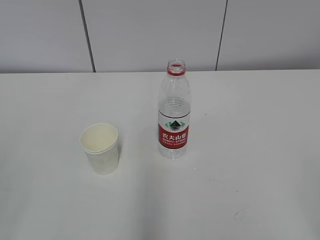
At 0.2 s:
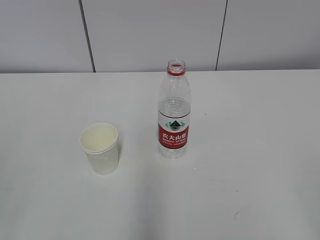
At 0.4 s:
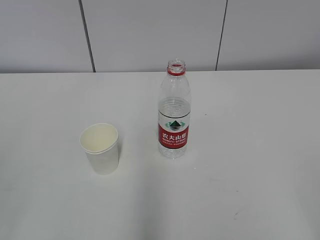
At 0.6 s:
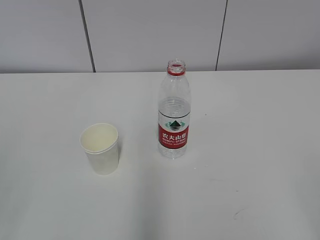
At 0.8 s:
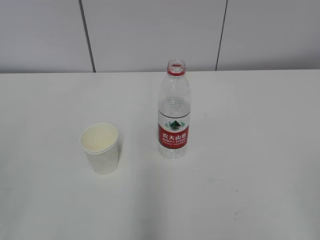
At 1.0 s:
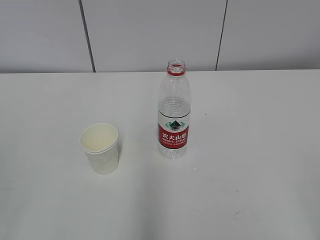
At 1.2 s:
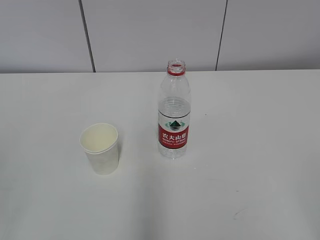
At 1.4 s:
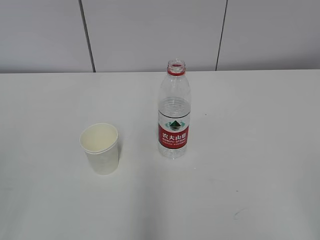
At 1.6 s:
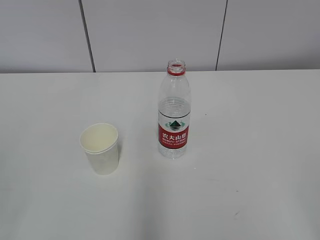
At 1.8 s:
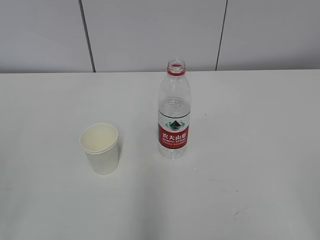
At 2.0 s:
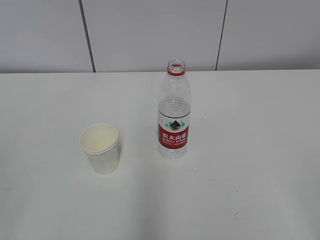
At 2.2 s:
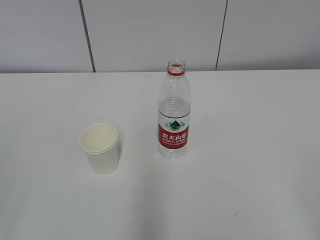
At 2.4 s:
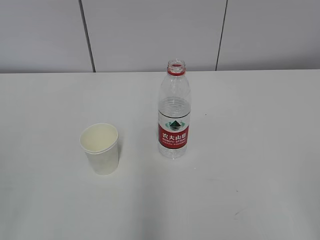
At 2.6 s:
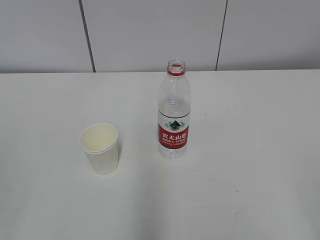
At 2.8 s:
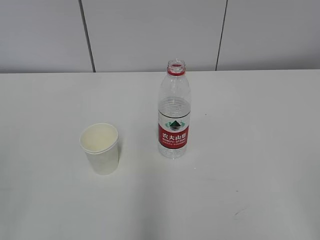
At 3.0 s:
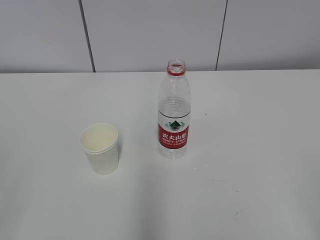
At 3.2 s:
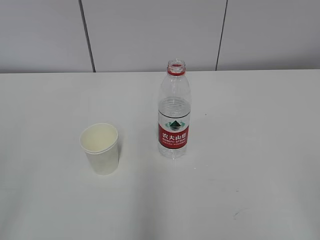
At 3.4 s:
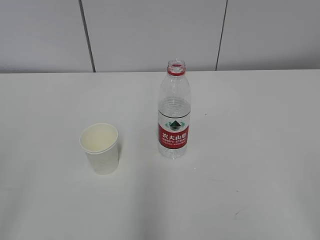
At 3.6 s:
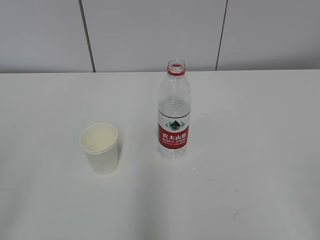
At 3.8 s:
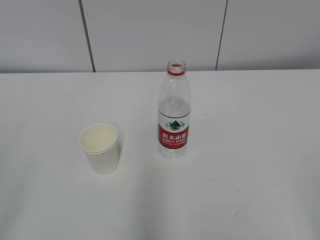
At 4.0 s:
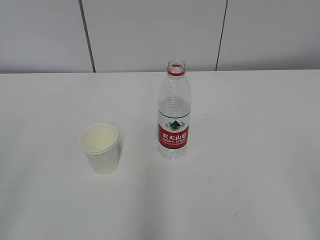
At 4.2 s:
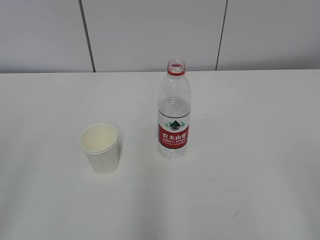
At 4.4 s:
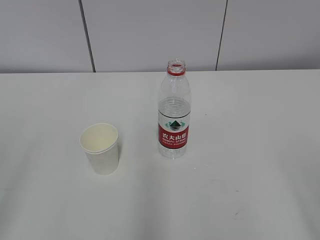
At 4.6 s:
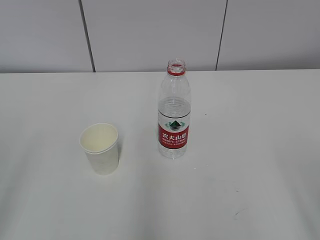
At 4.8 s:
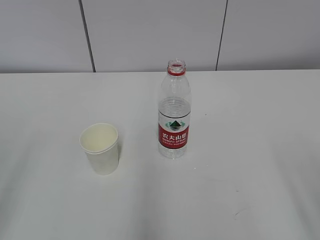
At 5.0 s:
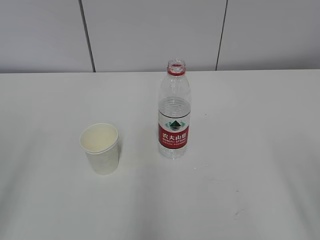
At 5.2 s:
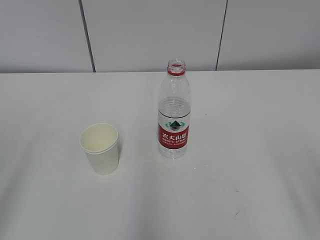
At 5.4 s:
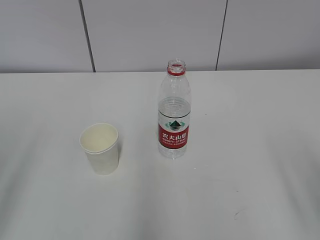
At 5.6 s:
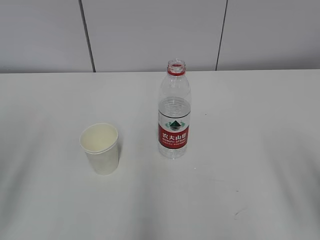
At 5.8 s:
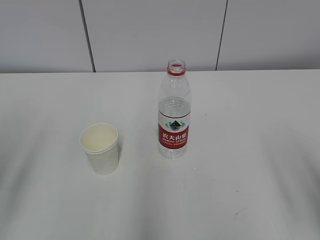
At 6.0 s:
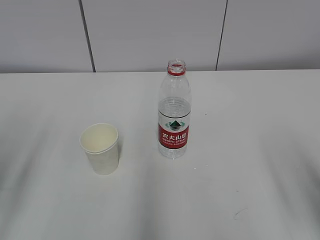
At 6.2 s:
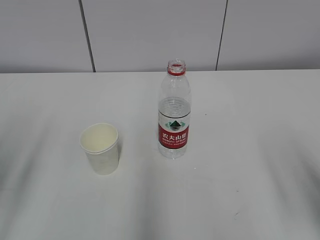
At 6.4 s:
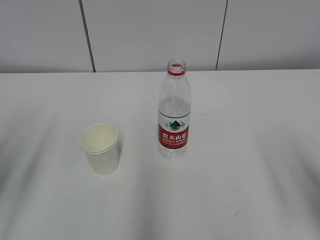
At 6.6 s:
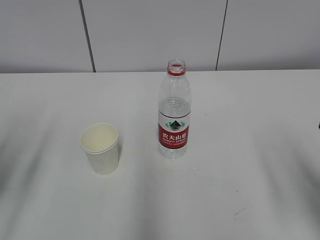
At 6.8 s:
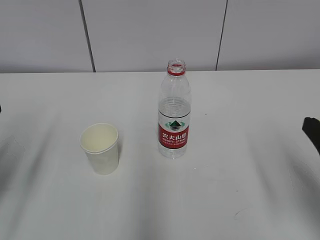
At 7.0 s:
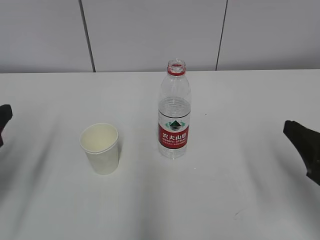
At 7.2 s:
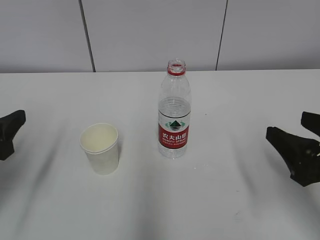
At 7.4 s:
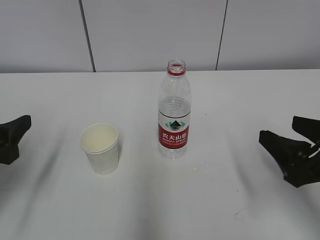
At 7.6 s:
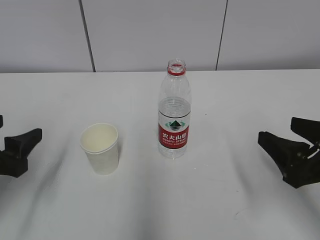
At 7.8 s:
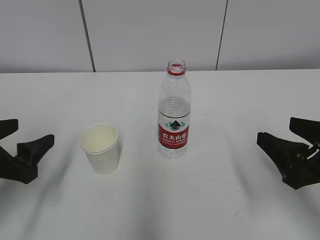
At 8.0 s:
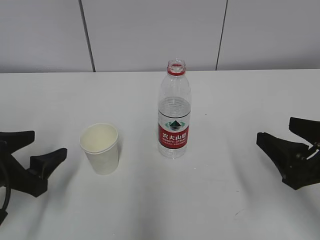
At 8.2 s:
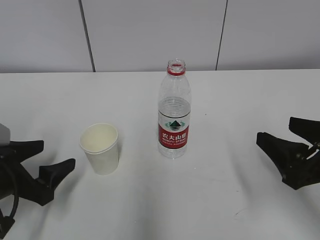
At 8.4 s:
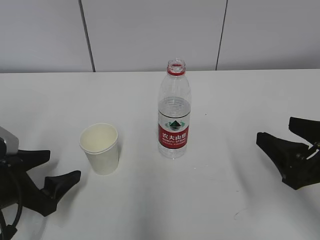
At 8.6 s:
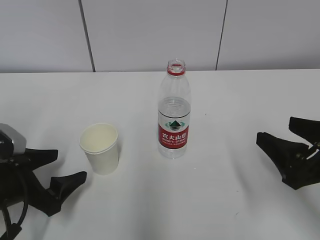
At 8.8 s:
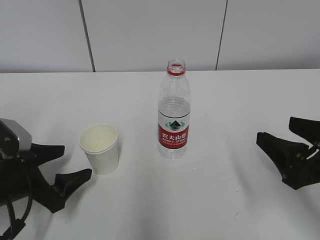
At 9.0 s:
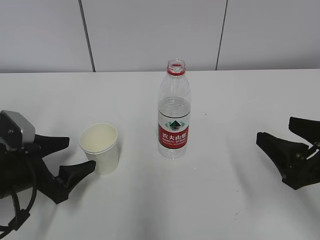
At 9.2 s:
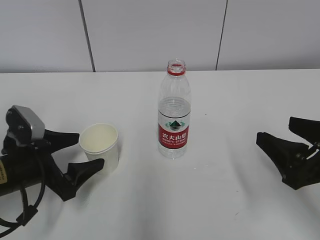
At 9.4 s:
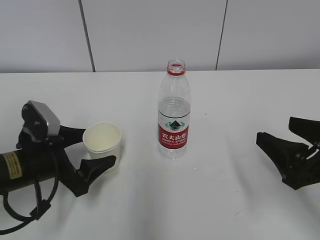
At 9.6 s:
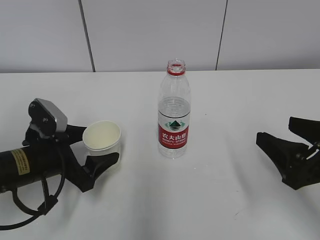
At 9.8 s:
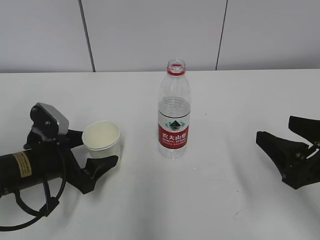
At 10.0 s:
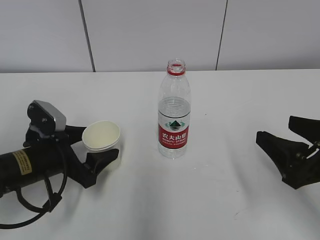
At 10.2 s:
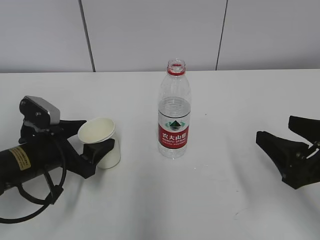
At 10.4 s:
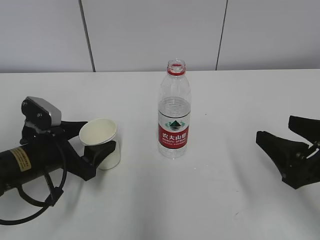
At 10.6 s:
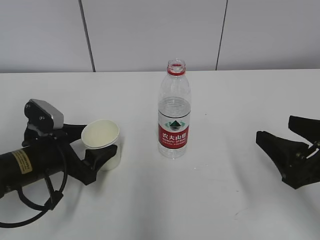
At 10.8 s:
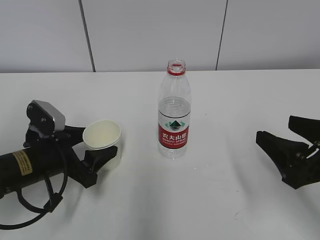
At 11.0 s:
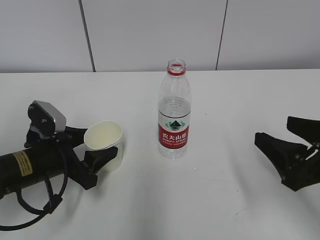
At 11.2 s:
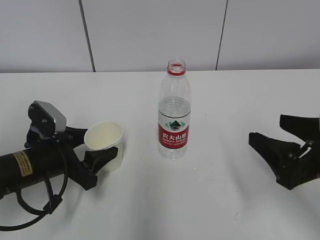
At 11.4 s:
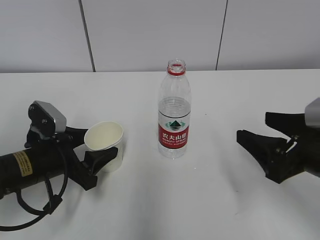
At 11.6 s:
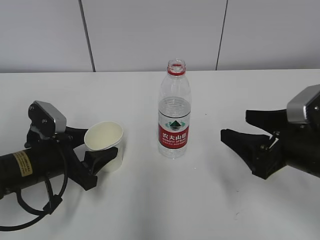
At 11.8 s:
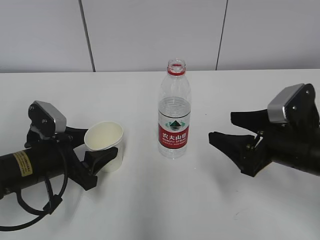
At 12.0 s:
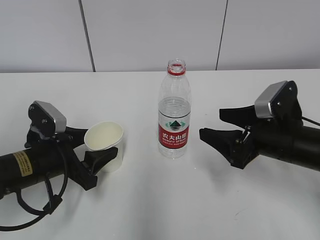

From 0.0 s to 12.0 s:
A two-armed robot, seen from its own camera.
Step, from 0.0 s to 11.2 s: Grab the paper cup with the left hand.
Step, from 0.0 s to 11.2 s: Grab the water bottle with the right hand.
From 6.0 s to 7.6 s: The left gripper is displaced downward and forward by about 10 cm. Meanwhile the right gripper heads forward and downward, covering about 10 cm.
From 7.6 s to 9.0 s: The left gripper heads downward, covering roughly 5 cm.
From 9.0 s to 10.4 s: The grippers make only small movements.
From 10.4 s to 12.0 s: The right gripper heads forward, covering approximately 10 cm.

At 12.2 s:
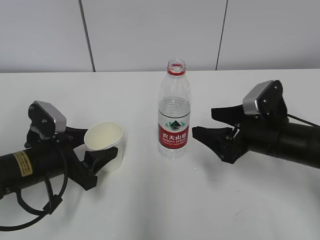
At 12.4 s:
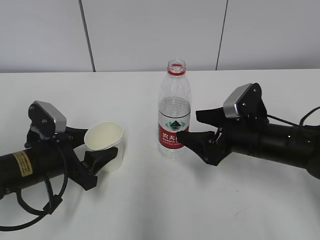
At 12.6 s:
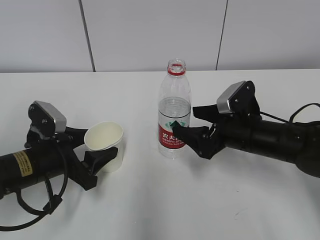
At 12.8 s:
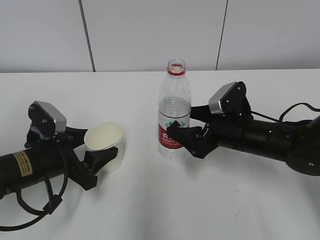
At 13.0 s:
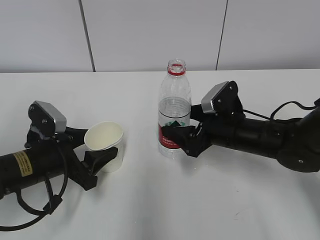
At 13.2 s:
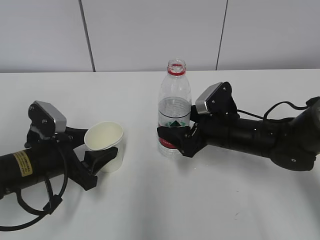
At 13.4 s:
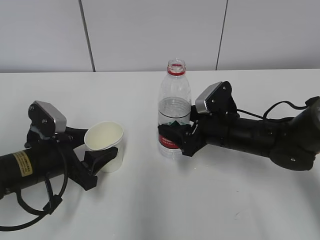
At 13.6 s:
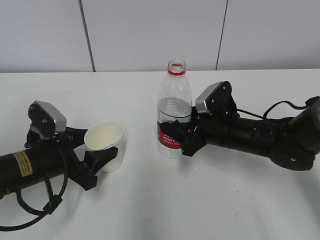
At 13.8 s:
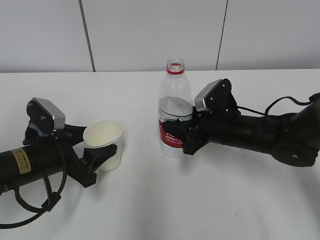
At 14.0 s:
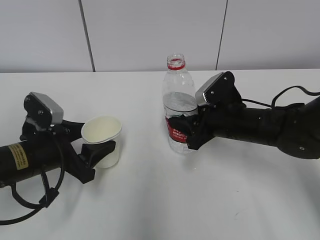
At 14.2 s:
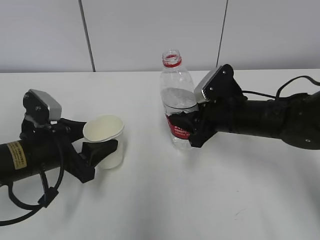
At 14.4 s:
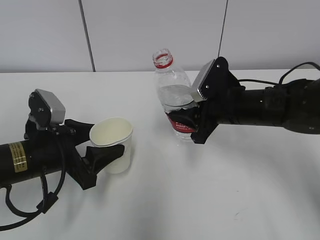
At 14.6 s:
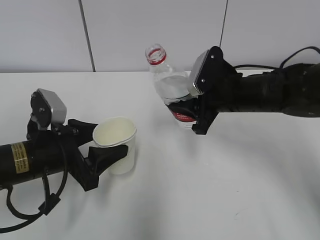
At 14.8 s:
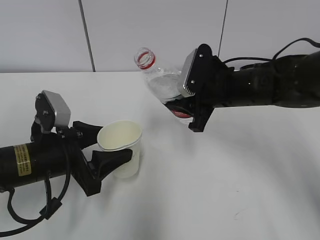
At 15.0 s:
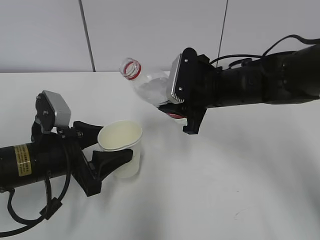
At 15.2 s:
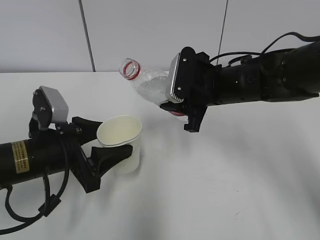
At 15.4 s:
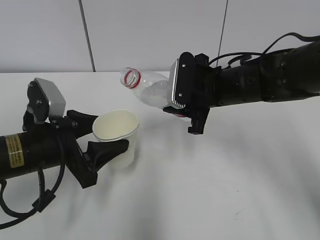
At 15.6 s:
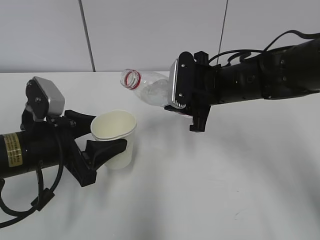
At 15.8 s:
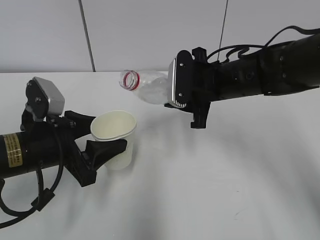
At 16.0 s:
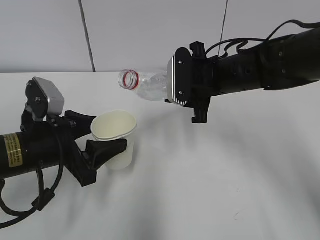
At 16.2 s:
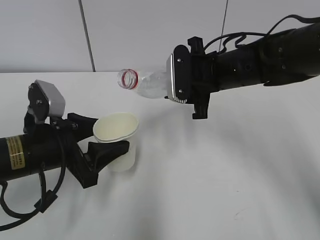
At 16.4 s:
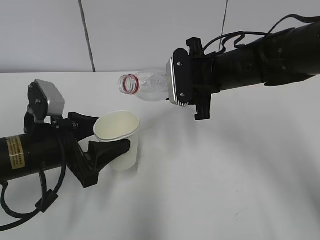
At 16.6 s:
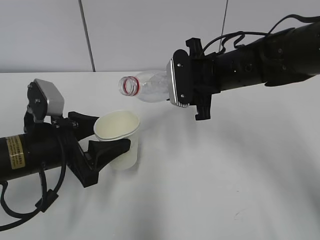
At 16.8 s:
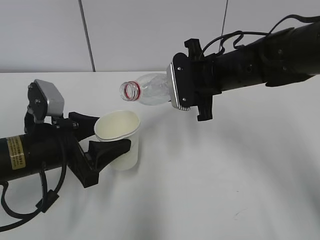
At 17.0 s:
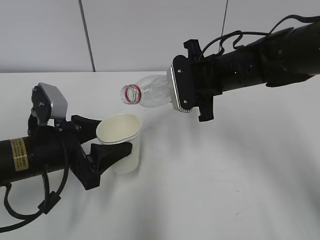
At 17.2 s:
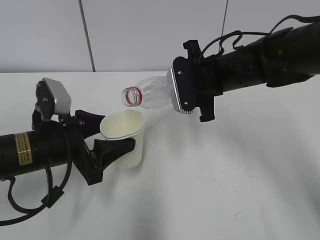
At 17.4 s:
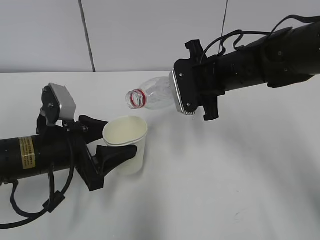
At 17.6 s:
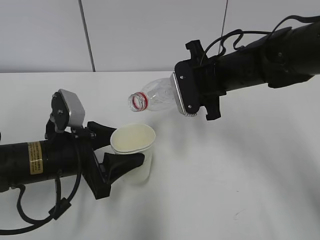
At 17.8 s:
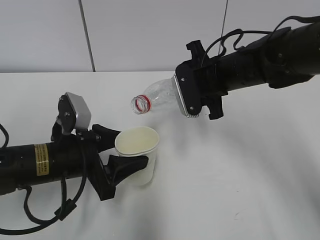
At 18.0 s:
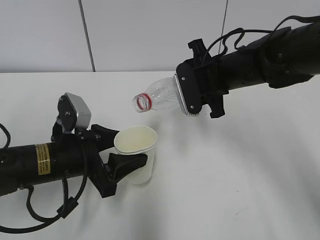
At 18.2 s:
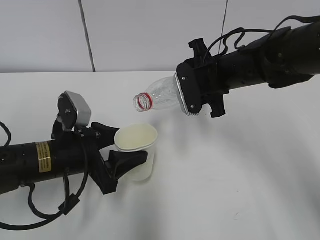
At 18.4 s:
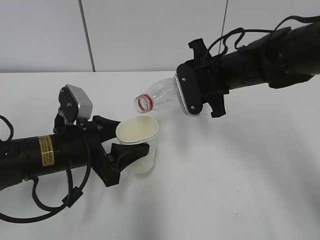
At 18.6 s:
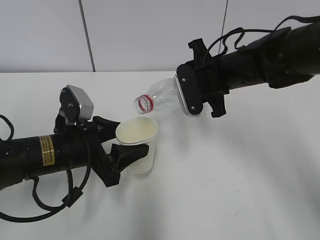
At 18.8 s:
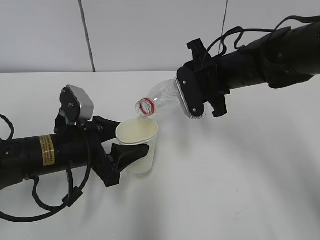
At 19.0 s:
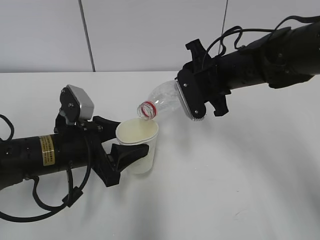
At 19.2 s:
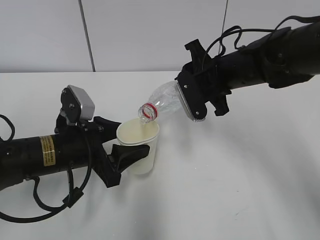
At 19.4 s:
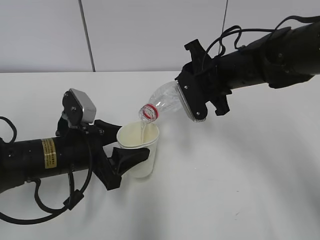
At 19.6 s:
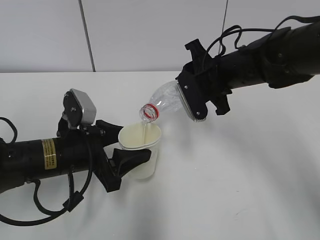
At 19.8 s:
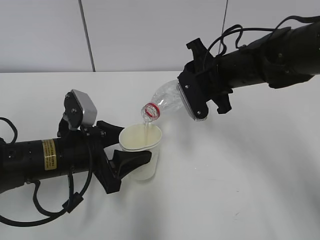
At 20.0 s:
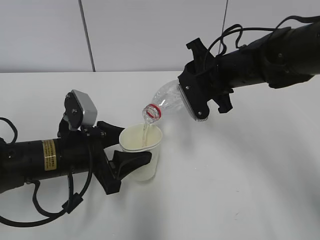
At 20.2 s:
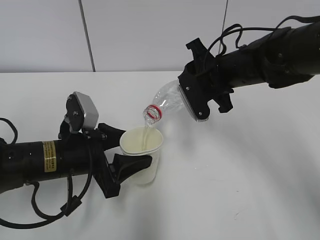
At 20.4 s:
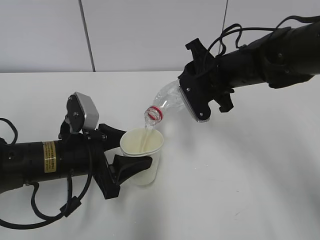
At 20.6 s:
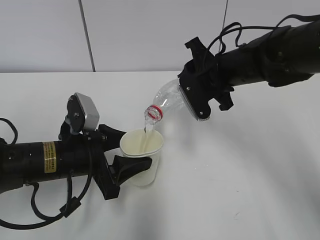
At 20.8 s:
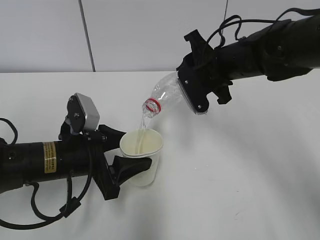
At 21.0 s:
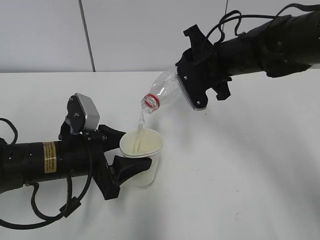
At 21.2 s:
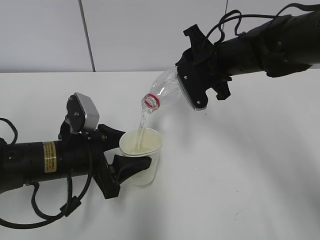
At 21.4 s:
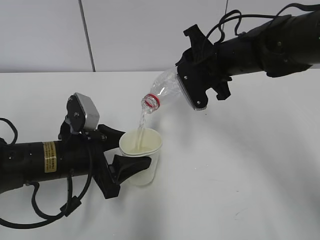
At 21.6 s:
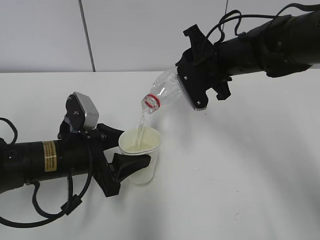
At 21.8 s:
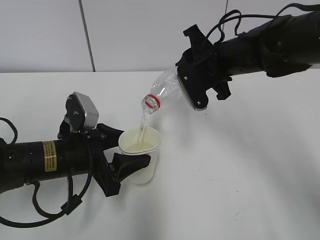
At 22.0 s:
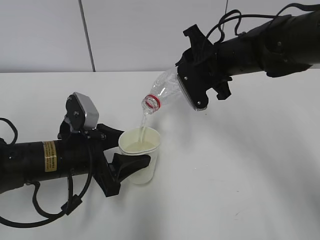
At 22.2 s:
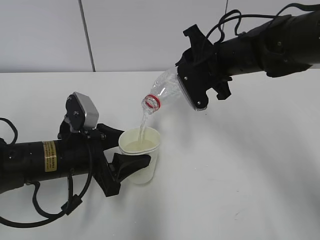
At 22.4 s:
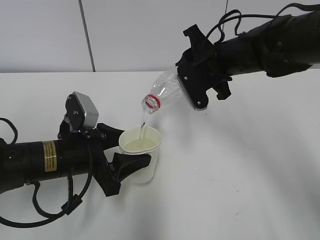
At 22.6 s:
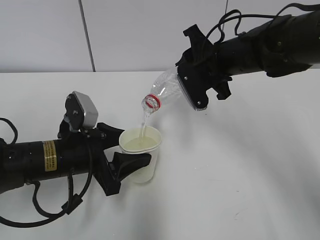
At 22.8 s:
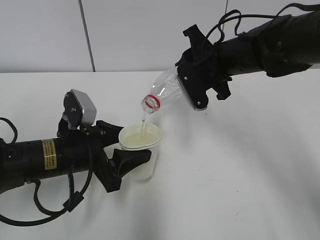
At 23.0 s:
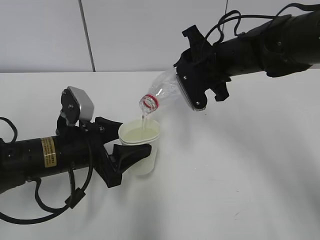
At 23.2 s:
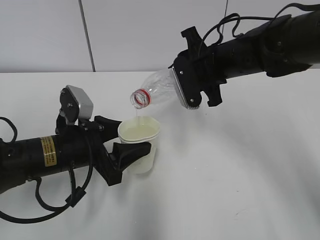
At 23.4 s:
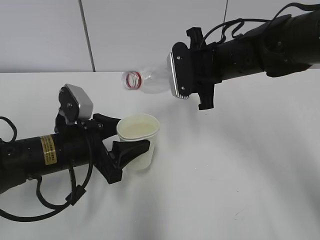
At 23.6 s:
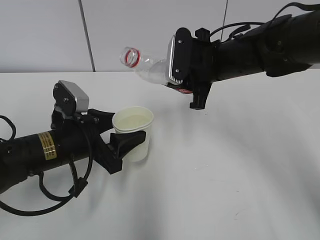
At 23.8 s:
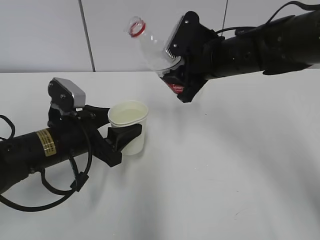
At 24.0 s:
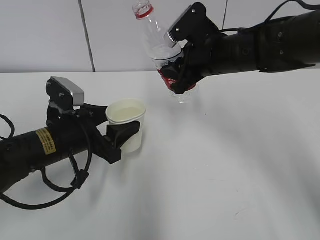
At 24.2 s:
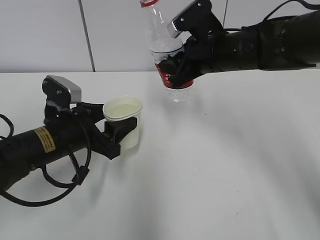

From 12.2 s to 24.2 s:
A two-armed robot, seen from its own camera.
Step, from 12.2 s to 15.8 s: Lift the paper cup with the left hand.
Step, from 16.0 s to 19.4 s: Fill water with the left hand.
Step, from 16.0 s to 19.4 s: Pour water with the right hand.
Step, from 19.6 s to 20.6 s: Collect water with the right hand.
Step, from 20.8 s to 22.2 s: Place the paper cup with the left hand.
From 12.2 s to 13.8 s: The right gripper moves to the left and forward, about 10 cm, and closes its fingers.
From 13.8 s to 15.2 s: The right gripper heads upward, covering some 10 cm.
From 16.6 s to 18.2 s: There are only small adjustments of the grippers.
From 18.2 s to 21.2 s: There are only small adjustments of the grippers.
From 21.2 s to 22.6 s: The two grippers keep their place.
